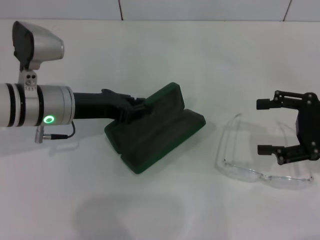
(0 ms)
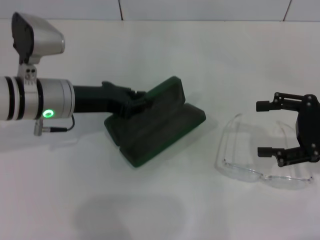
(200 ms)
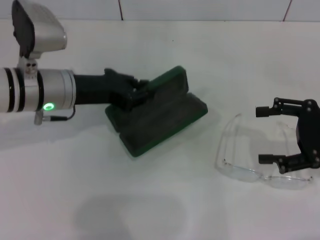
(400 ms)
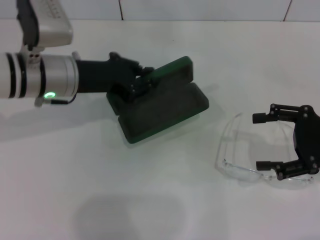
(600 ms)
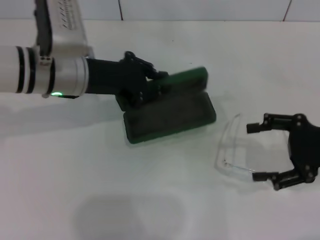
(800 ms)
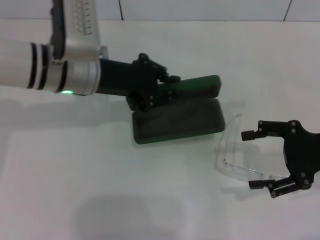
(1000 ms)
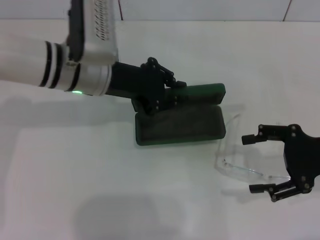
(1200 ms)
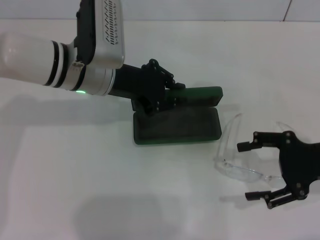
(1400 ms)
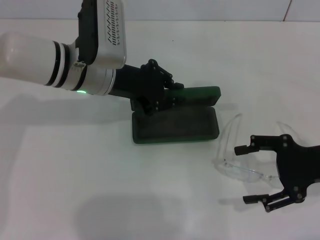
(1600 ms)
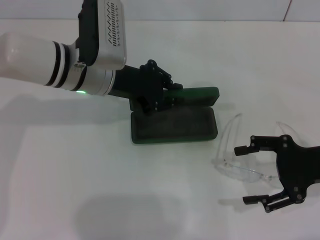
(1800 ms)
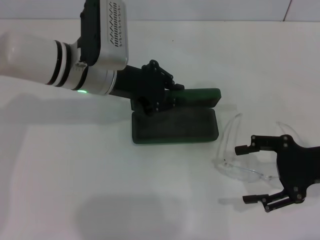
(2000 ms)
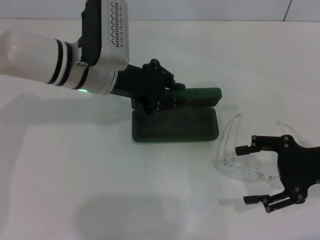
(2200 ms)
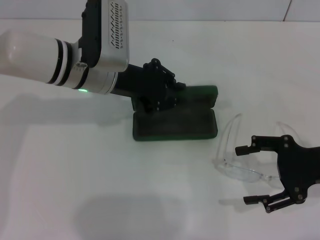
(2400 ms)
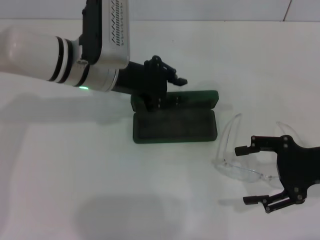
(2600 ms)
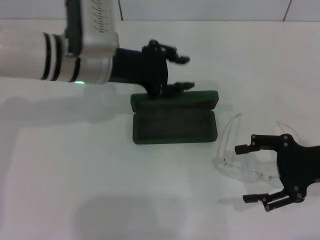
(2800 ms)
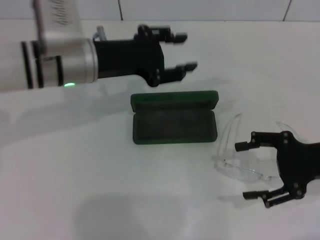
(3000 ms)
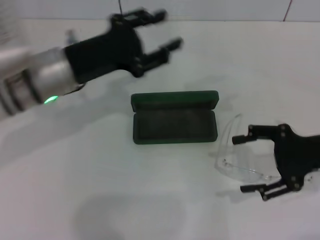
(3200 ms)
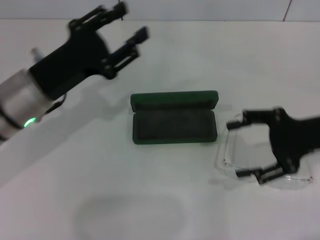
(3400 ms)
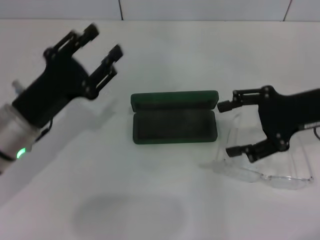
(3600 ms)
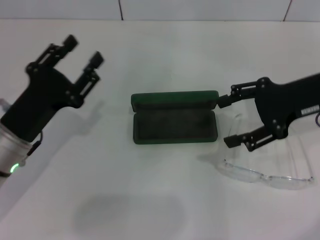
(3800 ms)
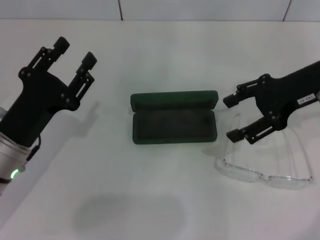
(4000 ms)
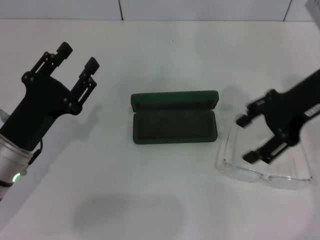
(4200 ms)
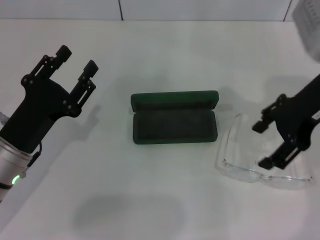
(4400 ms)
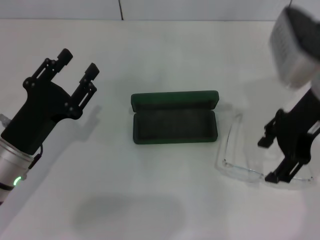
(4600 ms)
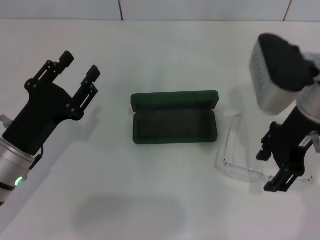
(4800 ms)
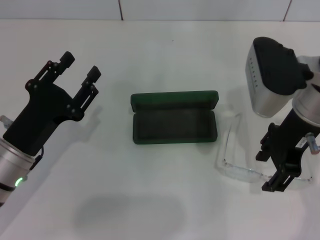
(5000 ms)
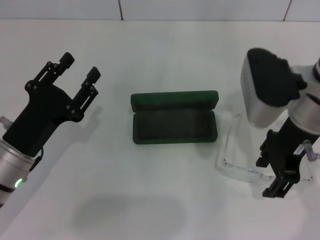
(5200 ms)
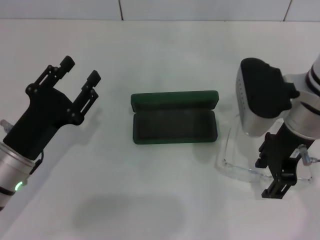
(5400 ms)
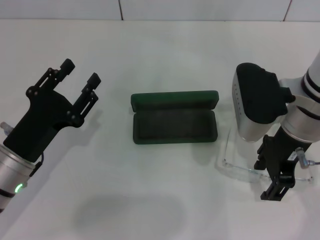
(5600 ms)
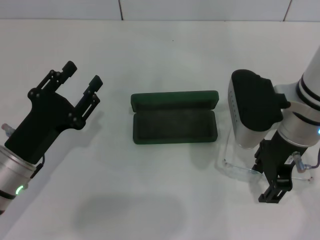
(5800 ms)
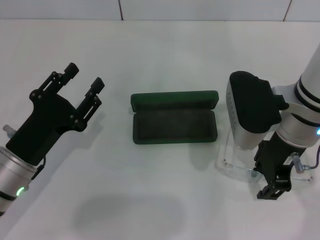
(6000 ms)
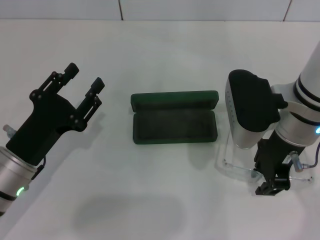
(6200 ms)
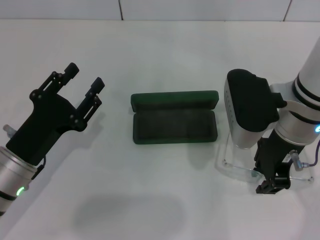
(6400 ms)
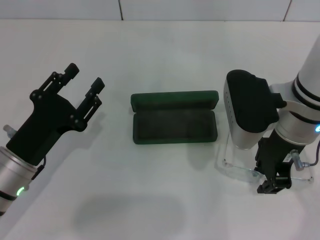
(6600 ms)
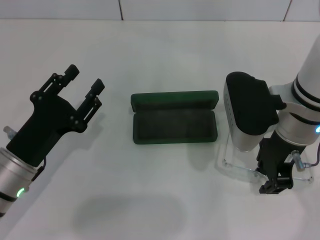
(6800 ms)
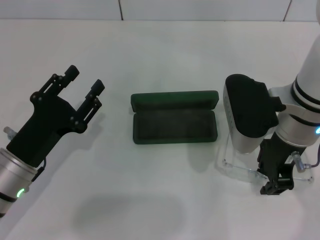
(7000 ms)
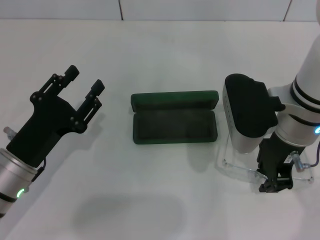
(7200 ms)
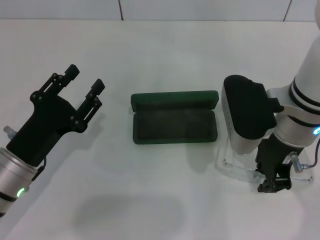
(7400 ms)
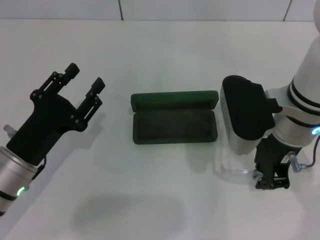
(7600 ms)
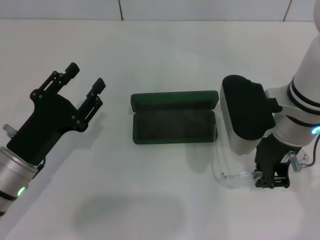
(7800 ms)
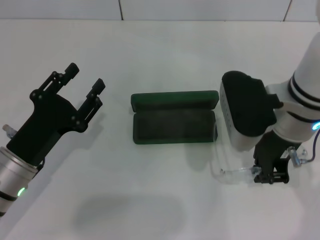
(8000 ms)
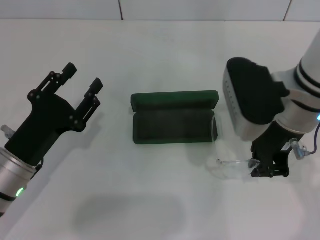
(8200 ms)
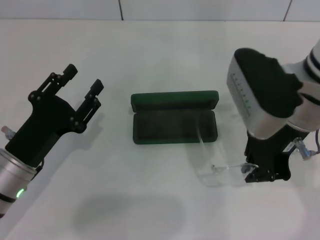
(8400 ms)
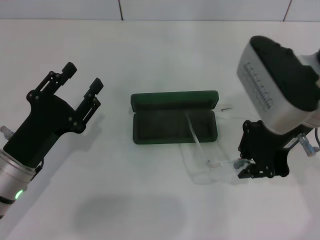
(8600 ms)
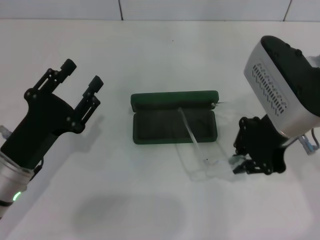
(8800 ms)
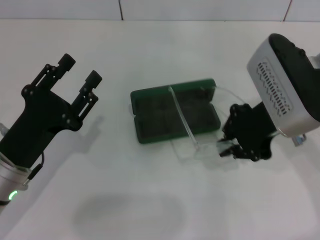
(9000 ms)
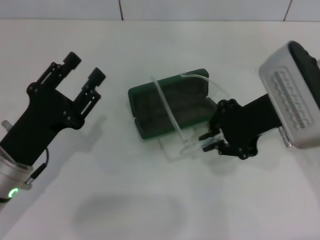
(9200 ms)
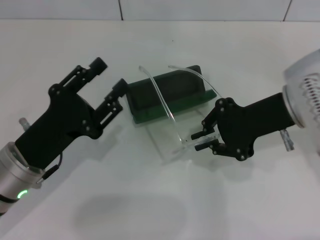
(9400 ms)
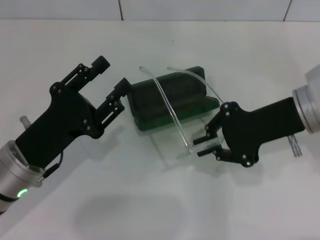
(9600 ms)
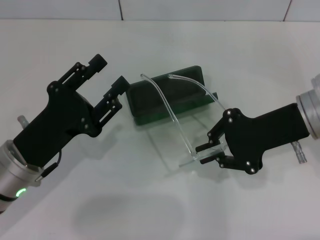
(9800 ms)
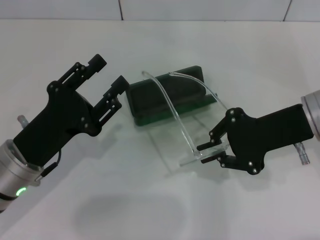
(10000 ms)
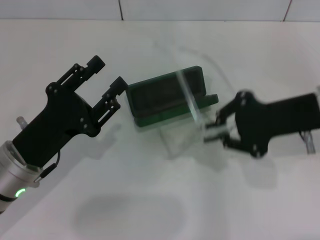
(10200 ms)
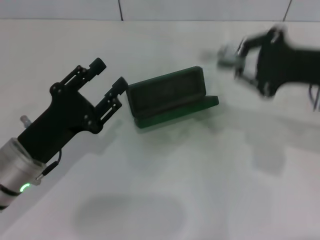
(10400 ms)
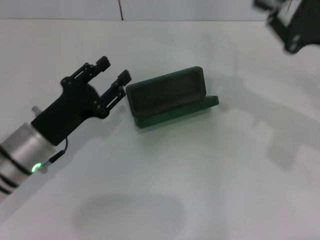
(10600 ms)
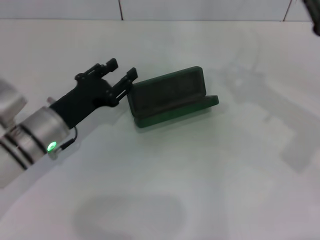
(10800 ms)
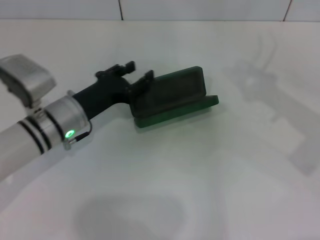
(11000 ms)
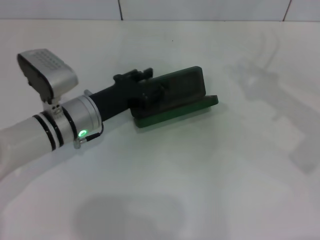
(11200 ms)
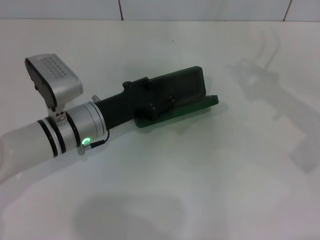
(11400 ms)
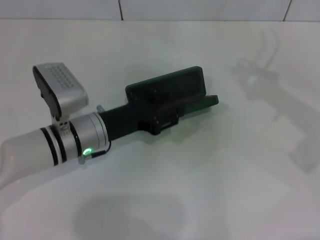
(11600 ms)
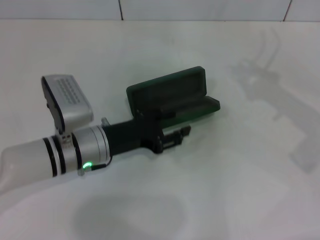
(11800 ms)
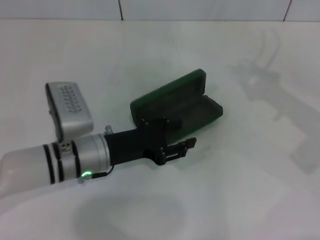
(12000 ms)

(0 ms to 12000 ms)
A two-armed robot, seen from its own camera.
Step, 0 ms - 2600 ms: Place the glasses case in the center of the table with your left hand.
Step, 2800 ms - 7600 ms: Grab the eyeglass frame with your right hand.
0 ms - 1600 ms: The left gripper travels to the right by about 5 cm.
1600 ms - 3000 ms: The left gripper opens up.
3000 ms - 4400 ms: The right gripper heads upward, to the left and forward, covering about 15 cm. Meanwhile the left gripper heads backward, downward and to the left, covering approximately 20 cm.
4400 ms - 6000 ms: The right gripper heads to the left and downward, covering about 10 cm, and closes its fingers.
6000 ms - 7600 ms: The right gripper closes its fingers.
9000 ms - 10400 ms: The right gripper shifts approximately 10 cm to the right.
10400 ms - 12000 ms: The right gripper goes roughly 5 cm to the right. The left gripper heads to the right and forward, covering about 10 cm.

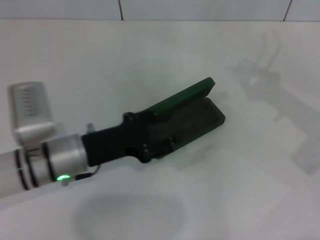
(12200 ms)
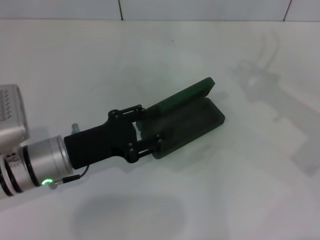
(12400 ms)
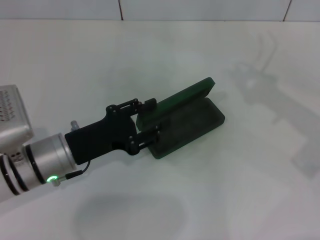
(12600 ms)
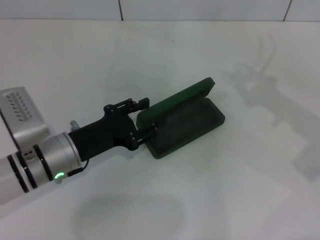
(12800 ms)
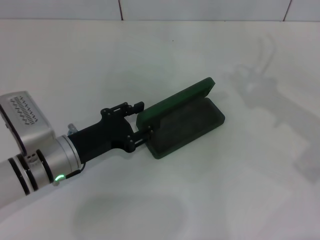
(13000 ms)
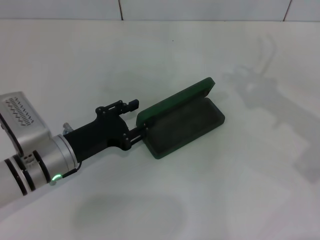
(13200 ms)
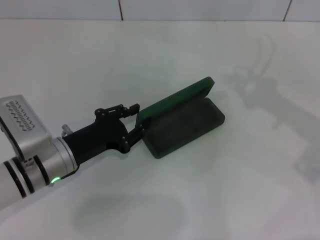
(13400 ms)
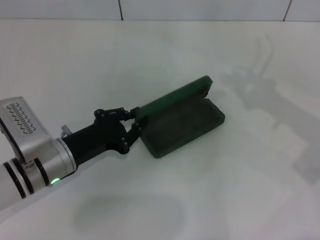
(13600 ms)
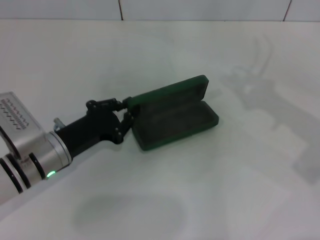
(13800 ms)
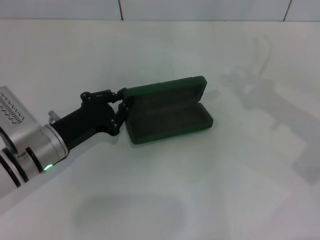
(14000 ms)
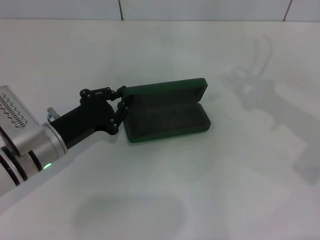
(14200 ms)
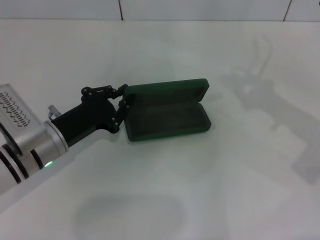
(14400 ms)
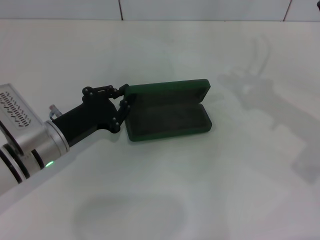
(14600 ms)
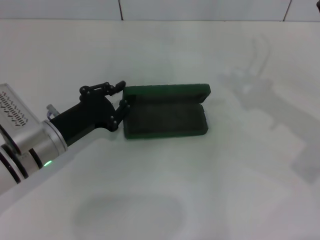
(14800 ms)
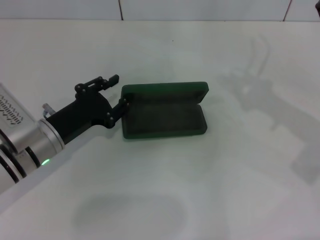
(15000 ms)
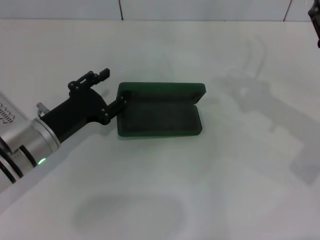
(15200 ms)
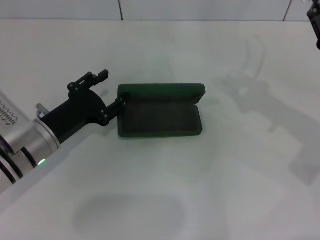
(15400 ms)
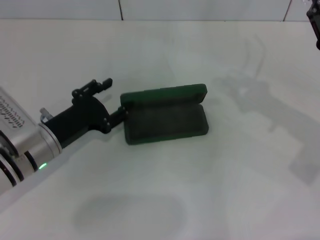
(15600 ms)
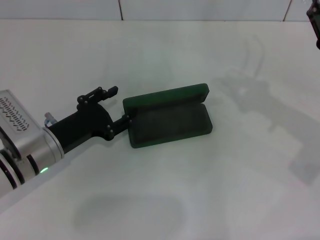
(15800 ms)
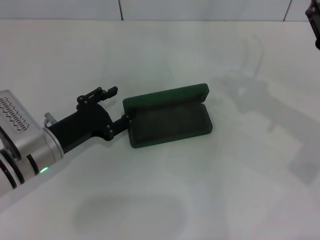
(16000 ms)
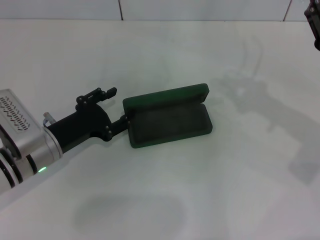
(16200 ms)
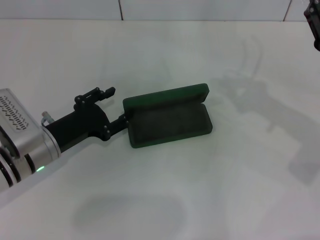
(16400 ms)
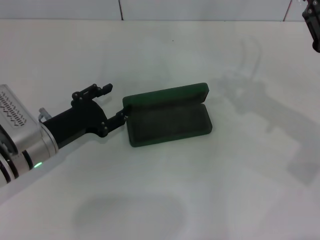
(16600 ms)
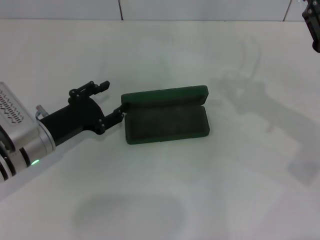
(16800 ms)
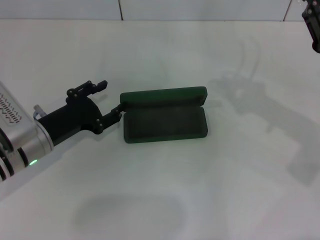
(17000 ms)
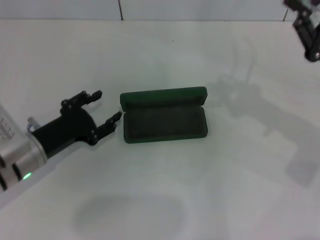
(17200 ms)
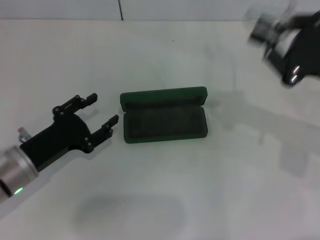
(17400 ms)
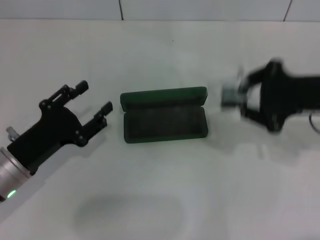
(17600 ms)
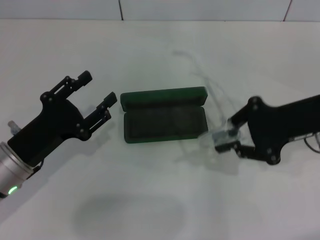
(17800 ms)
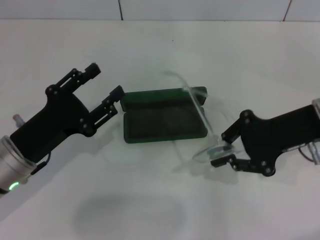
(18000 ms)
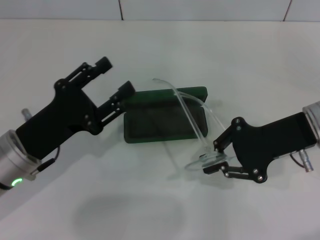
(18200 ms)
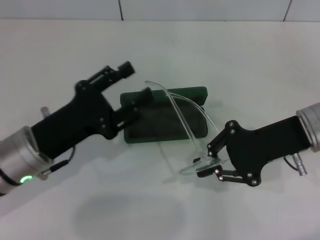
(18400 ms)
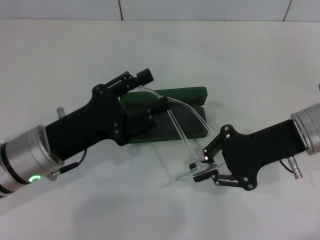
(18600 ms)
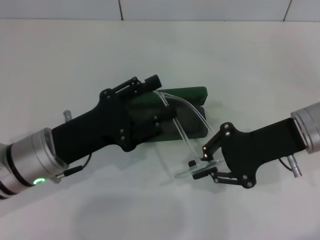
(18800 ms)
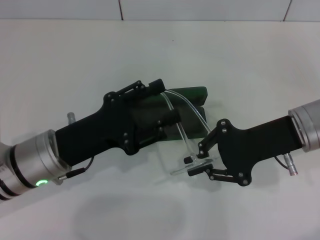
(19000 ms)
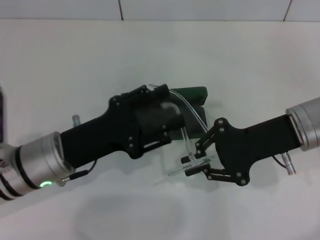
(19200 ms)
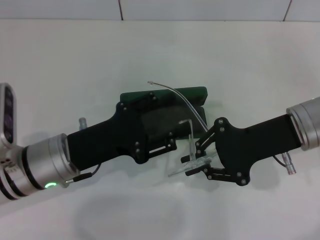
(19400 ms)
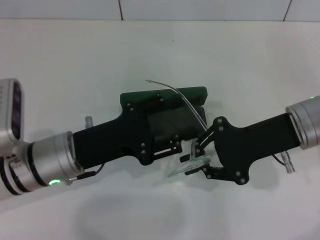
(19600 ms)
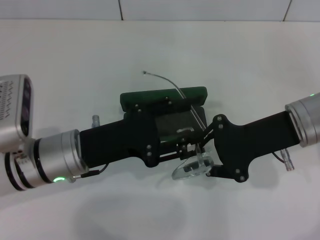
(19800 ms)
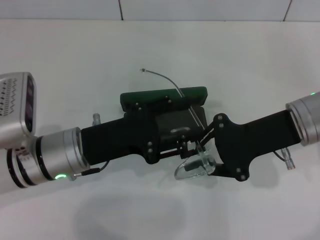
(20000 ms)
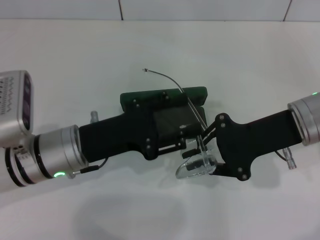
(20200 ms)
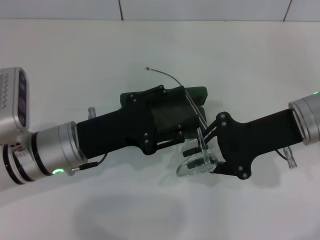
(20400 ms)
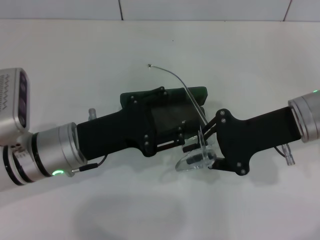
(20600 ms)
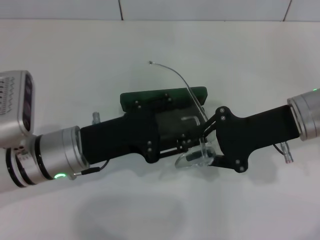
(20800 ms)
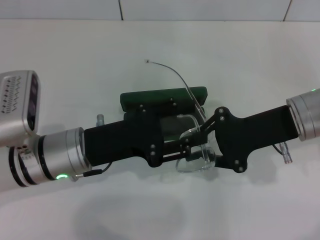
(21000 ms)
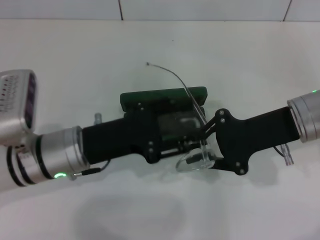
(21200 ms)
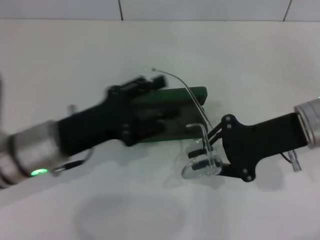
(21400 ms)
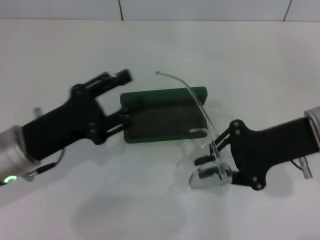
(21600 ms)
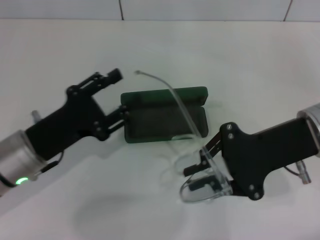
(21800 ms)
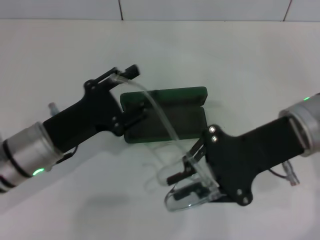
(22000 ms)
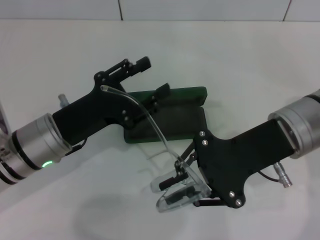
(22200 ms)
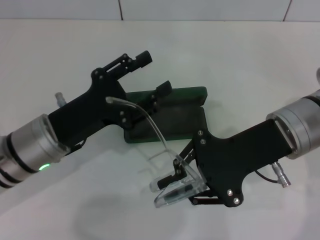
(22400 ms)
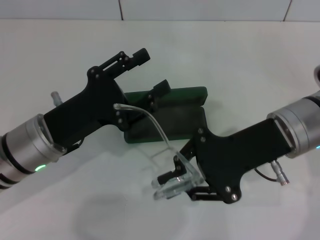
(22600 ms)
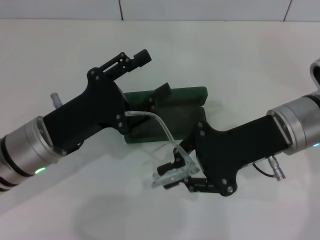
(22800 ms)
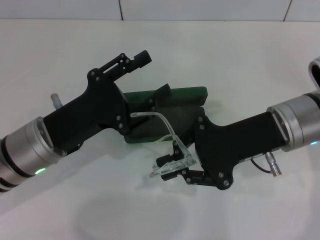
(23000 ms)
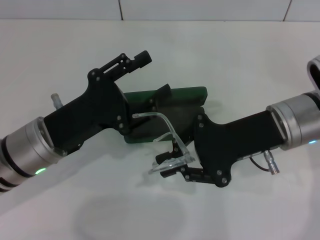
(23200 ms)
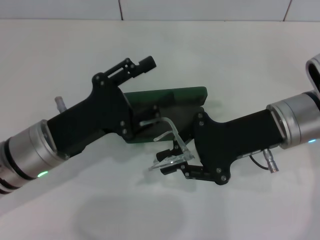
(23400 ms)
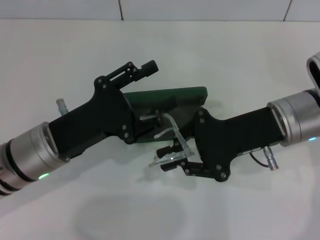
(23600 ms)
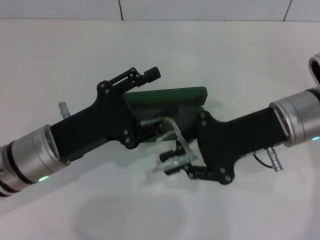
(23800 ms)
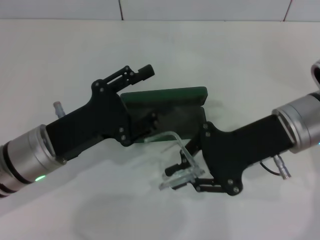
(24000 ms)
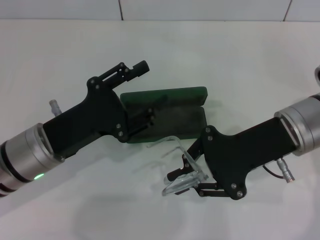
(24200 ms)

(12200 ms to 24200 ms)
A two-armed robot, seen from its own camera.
12200 ms - 13800 ms: The left gripper closes.
13800 ms - 15200 ms: The left gripper opens up.
15200 ms - 16600 ms: The grippers move only a little.
16600 ms - 18200 ms: The right gripper shifts about 5 cm to the left. The left gripper changes place by approximately 5 cm.
18200 ms - 19800 ms: The left gripper goes roughly 5 cm to the right.
19800 ms - 21200 ms: Neither gripper changes place.
22600 ms - 24200 ms: The grippers move only a little.
